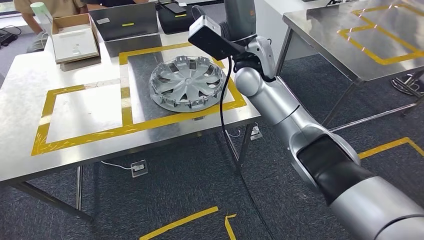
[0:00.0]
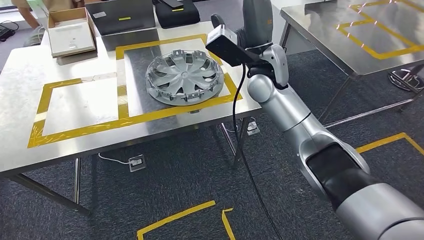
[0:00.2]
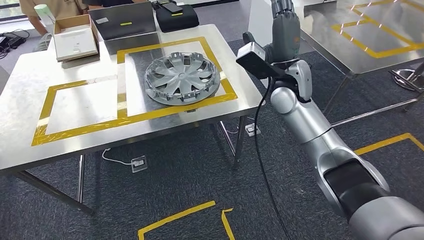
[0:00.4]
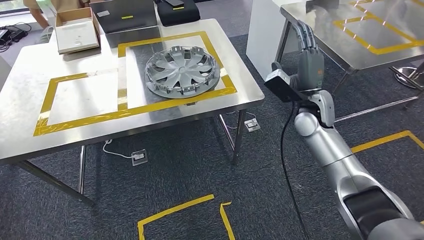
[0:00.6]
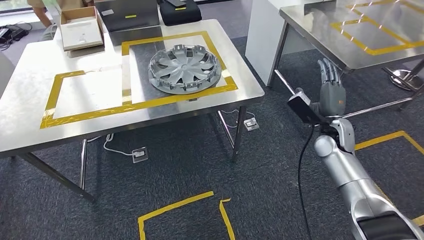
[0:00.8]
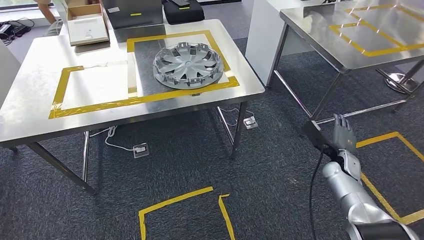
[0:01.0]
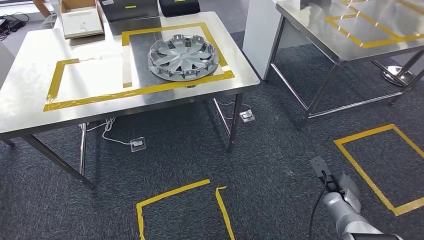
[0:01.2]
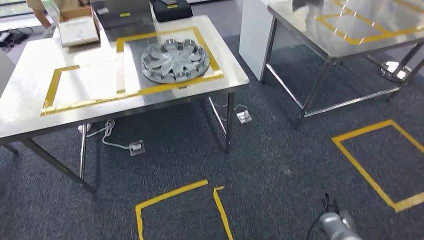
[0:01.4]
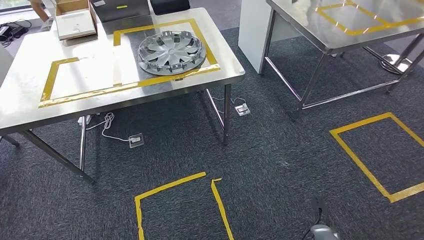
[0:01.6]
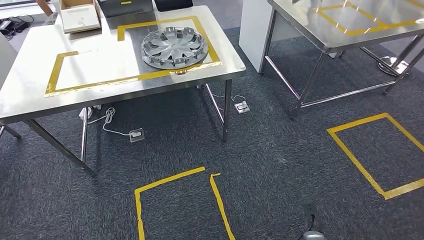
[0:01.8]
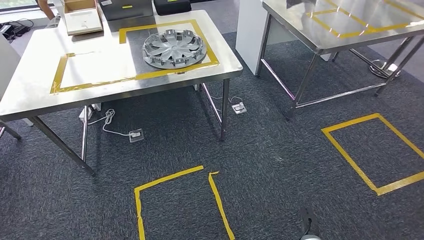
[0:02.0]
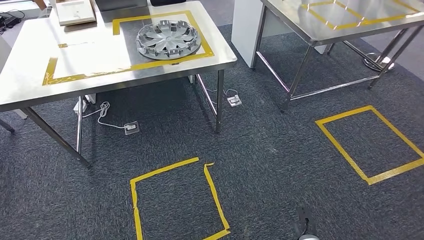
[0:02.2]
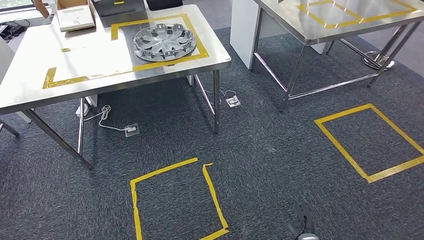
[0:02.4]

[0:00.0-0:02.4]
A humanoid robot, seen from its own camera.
Step, 0:00.0 to 0:02.4: Move to the initial position of the workbench.
